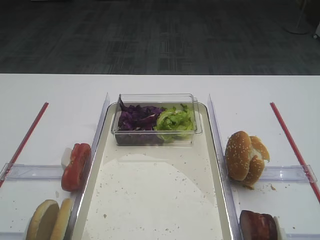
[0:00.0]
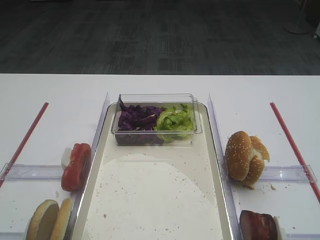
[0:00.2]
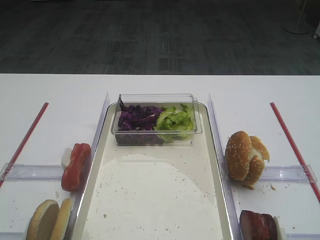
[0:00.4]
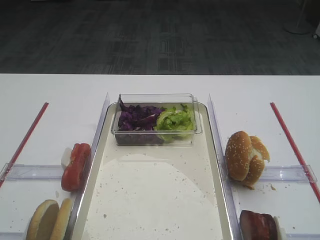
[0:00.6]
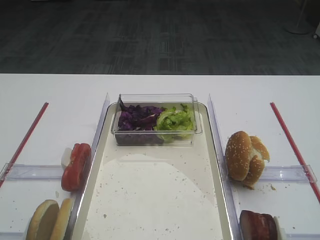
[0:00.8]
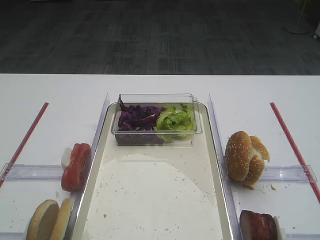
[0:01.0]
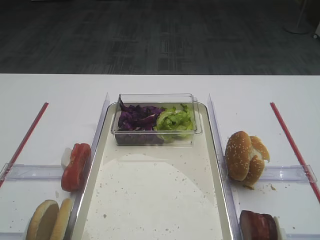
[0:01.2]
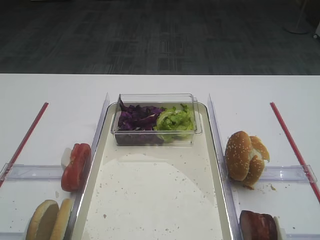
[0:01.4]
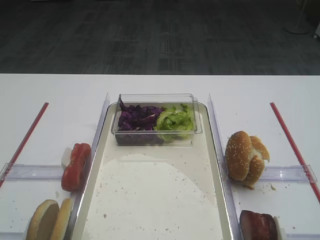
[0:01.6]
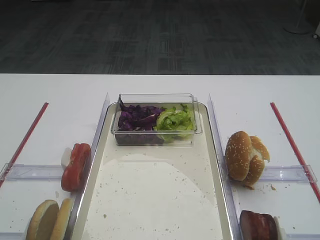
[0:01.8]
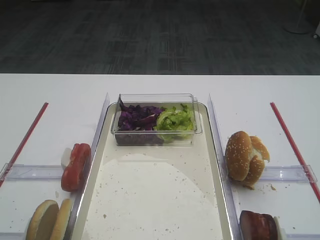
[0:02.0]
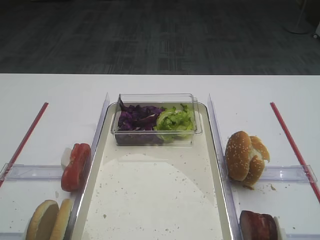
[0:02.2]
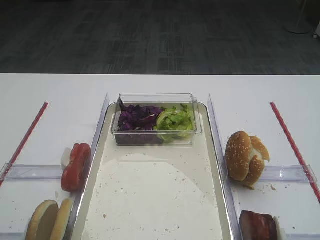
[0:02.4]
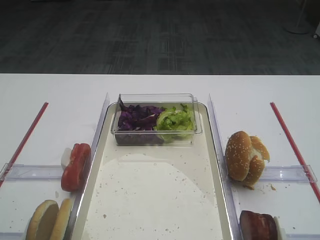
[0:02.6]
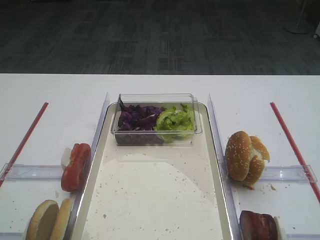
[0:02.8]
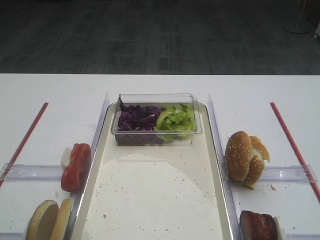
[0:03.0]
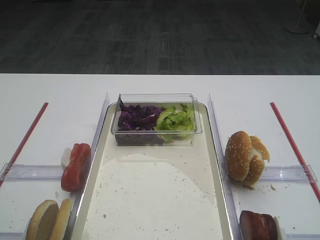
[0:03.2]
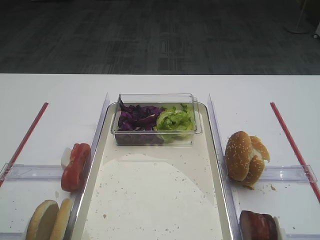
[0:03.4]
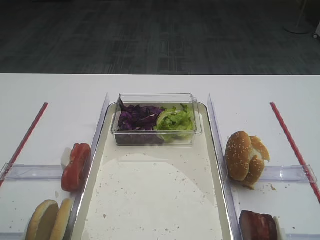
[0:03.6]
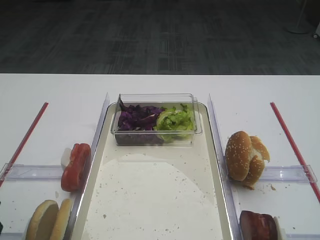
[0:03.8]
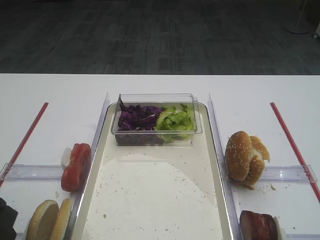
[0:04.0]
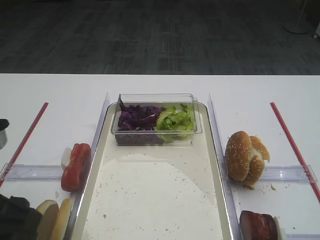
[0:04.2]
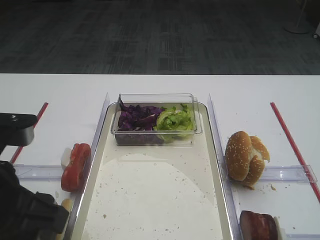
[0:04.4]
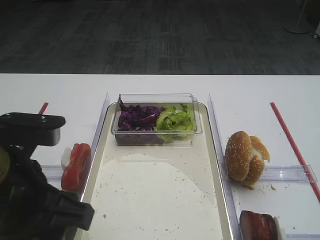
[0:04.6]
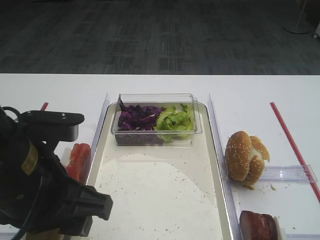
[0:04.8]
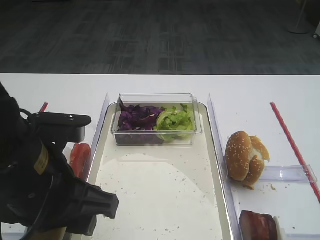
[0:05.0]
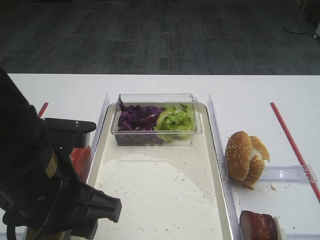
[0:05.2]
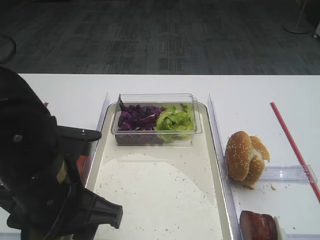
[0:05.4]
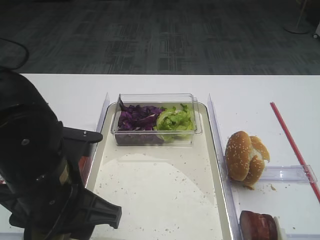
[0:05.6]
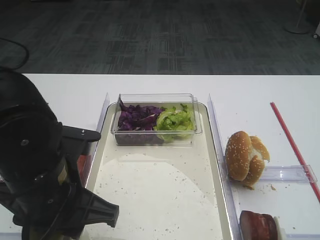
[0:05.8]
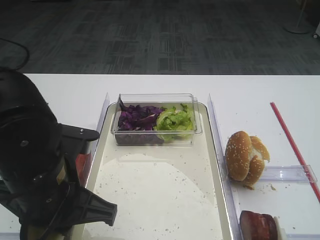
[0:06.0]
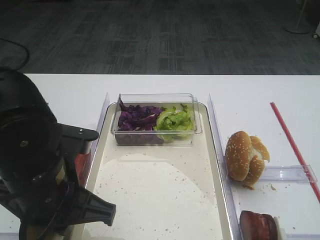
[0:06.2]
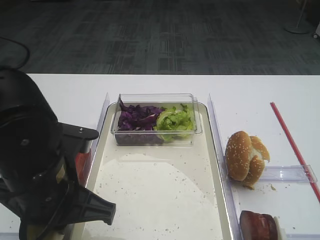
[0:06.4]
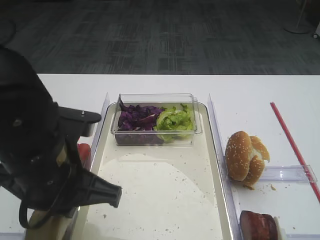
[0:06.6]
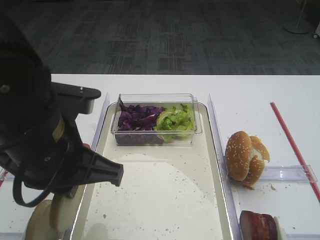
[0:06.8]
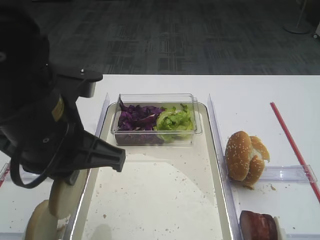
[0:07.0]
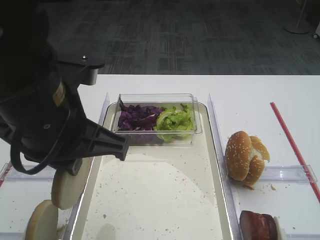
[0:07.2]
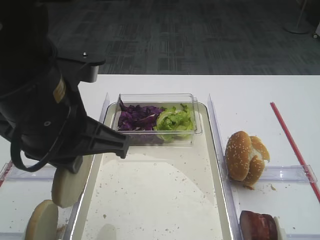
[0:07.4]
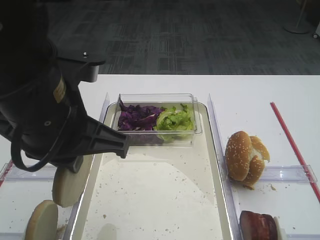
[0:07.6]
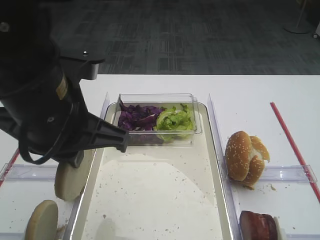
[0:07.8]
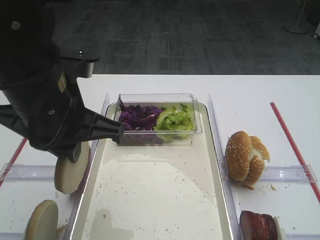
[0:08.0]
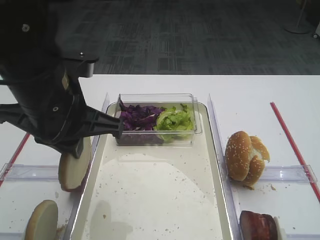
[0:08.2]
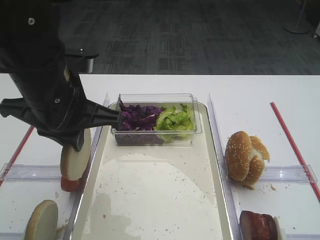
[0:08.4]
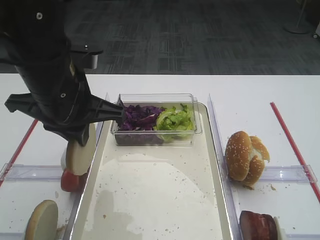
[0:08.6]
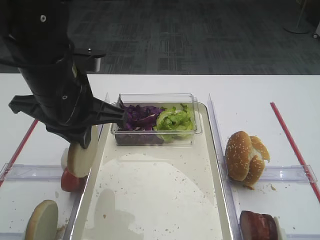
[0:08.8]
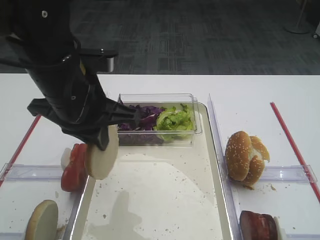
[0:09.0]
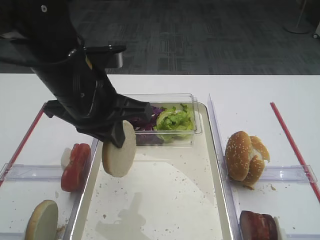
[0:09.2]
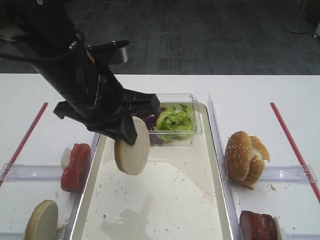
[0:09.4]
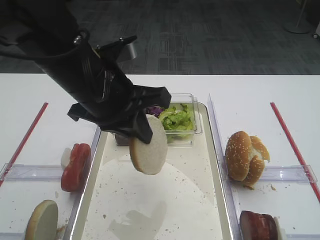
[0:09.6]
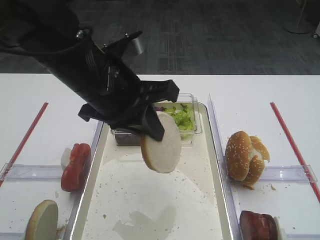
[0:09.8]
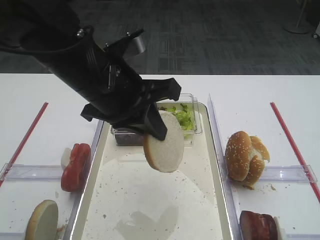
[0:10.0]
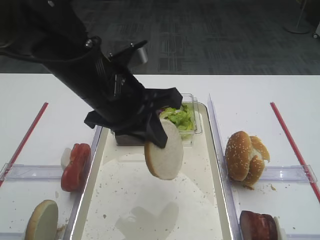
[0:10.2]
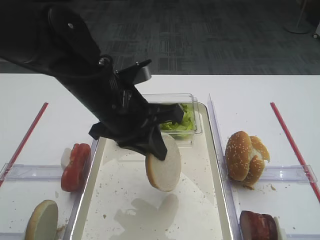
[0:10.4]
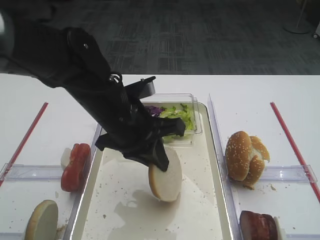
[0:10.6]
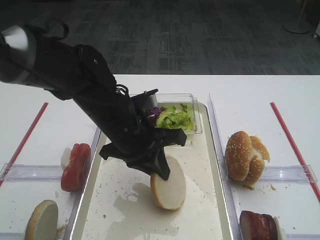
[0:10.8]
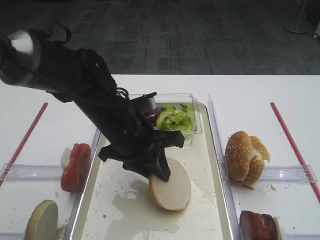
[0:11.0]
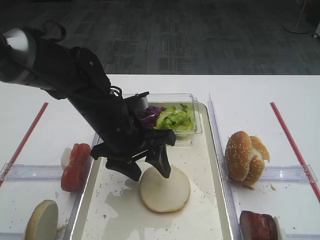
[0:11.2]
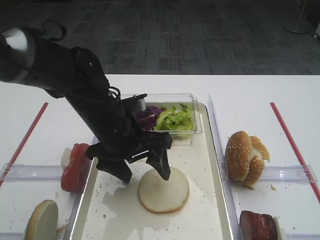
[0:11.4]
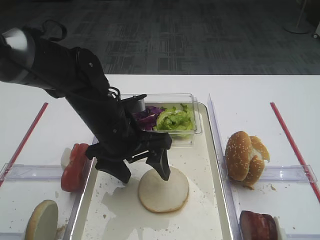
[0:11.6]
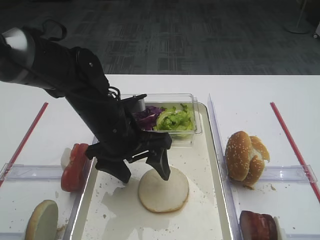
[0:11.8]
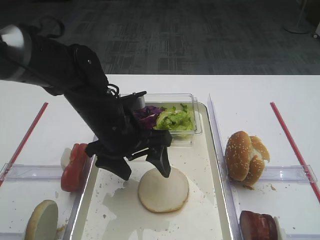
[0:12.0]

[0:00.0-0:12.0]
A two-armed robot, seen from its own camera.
Step, 0:00.0 to 0:07.4: Pick up the bread slice with the left gripper.
0:03.0 to 0:04.4: The left gripper travels to the right by about 10 cm.
0:04.4 to 0:06.0: The left gripper travels to the right by roughly 5 cm, and closes.
0:06.0 to 0:07.6: The left gripper travels upward by about 10 cm.
0:07.6 to 0:09.0: The left gripper goes approximately 5 cm forward.
0:09.0 to 0:10.4: The left gripper changes place by roughly 5 cm.
0:10.4 to 0:12.0: The left gripper heads downward, covering roughly 5 cm, and opens.

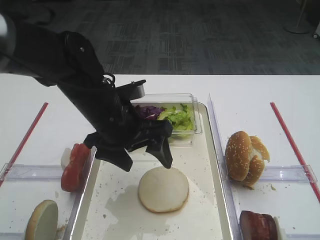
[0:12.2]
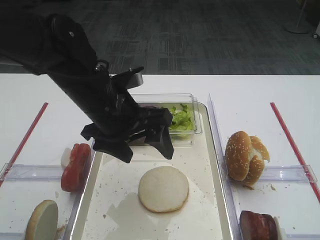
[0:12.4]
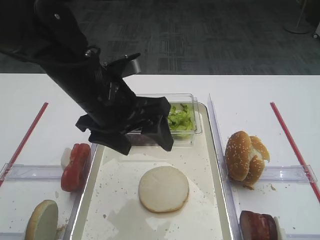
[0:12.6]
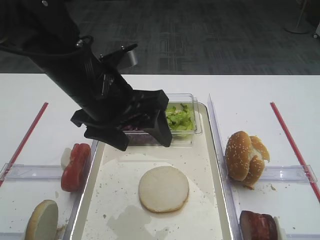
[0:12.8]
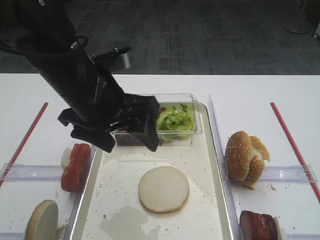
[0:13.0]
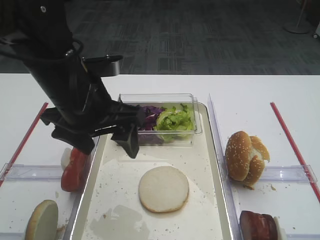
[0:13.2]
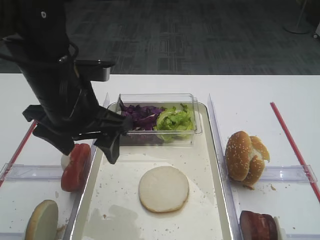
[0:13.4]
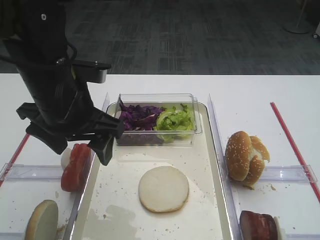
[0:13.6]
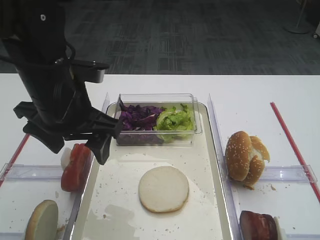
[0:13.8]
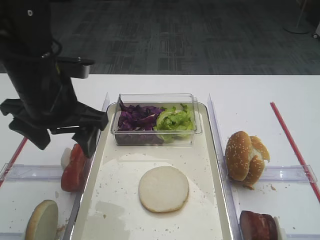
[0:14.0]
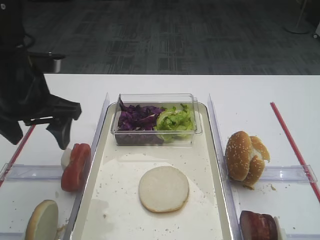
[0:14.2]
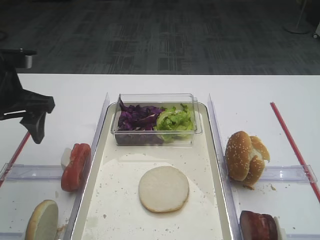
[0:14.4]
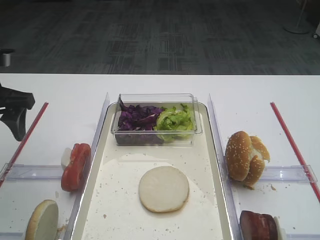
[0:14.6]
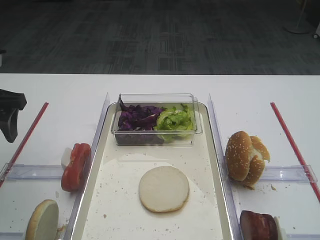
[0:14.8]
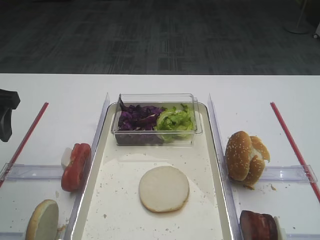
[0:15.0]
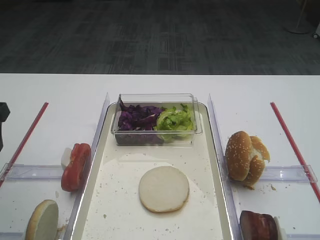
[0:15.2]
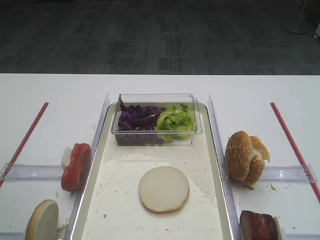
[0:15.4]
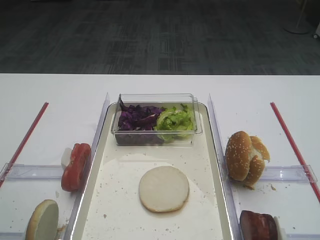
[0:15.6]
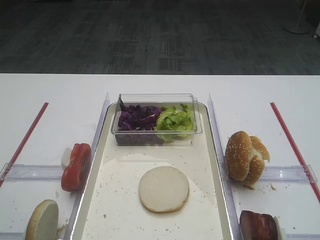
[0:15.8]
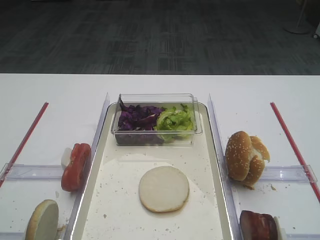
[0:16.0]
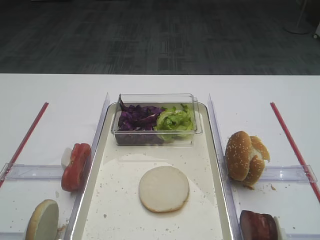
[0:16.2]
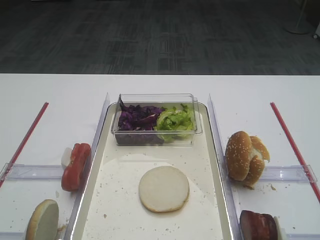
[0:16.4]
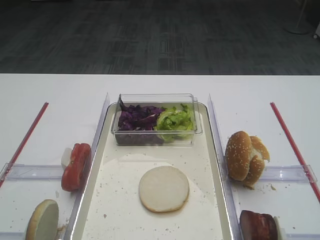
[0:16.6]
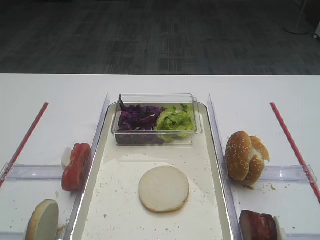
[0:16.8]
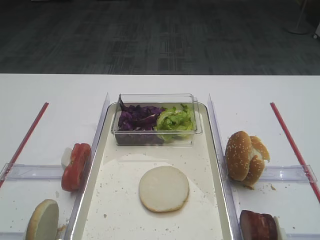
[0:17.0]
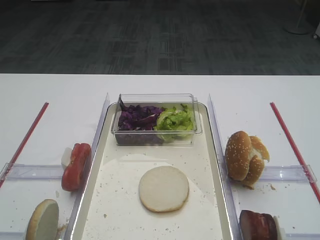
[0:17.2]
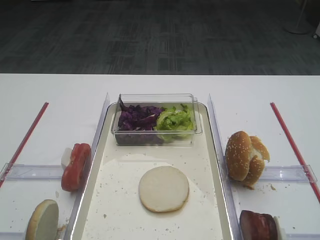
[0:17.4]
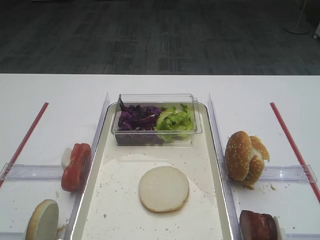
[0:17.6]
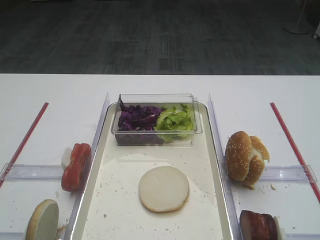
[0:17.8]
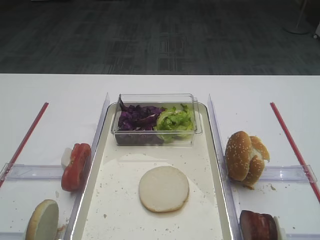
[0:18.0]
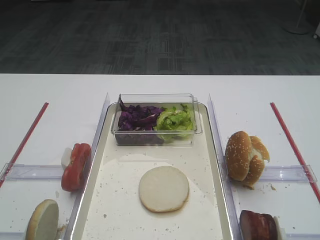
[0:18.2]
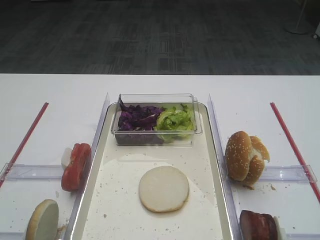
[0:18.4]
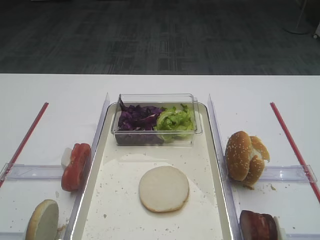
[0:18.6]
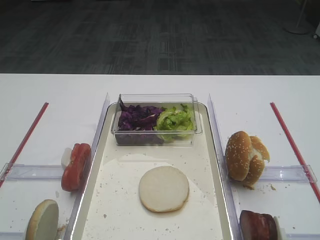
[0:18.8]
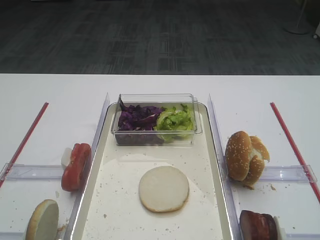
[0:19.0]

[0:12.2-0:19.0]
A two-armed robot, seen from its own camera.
0:12.2 to 0:13.6: The left gripper heads upward and to the left, covering approximately 10 cm.
0:13.6 to 0:15.0: The left gripper shifts about 15 cm to the left.
0:15.0 to 0:16.2: The left gripper is displaced backward by some 20 cm.
0:17.6 to 0:19.0: Both grippers stay put.

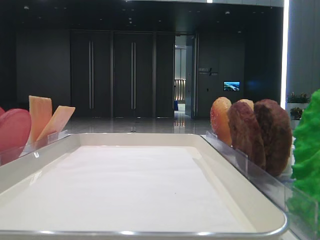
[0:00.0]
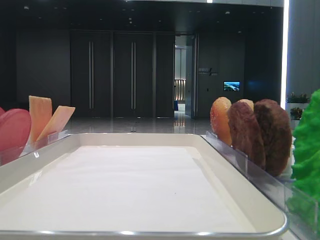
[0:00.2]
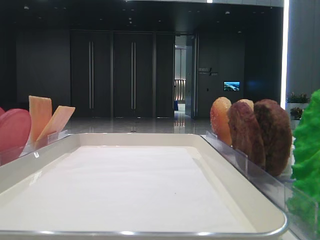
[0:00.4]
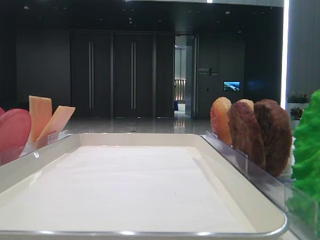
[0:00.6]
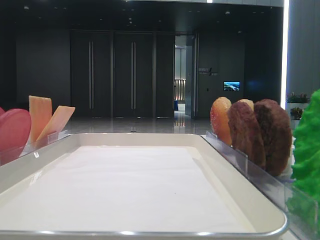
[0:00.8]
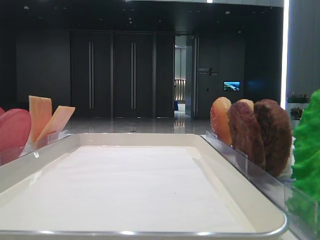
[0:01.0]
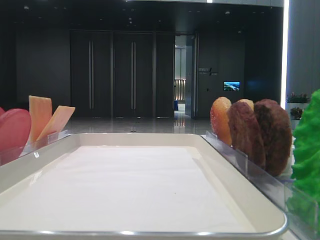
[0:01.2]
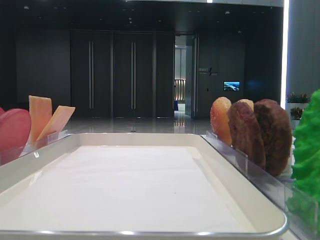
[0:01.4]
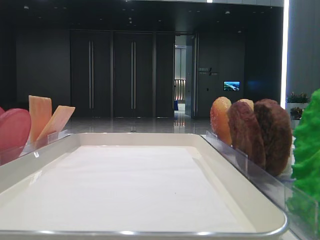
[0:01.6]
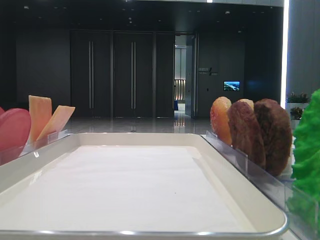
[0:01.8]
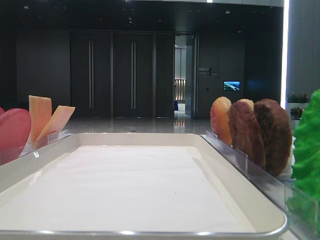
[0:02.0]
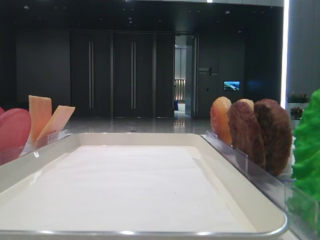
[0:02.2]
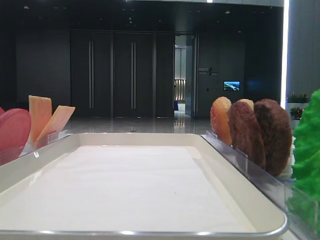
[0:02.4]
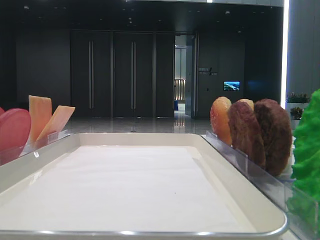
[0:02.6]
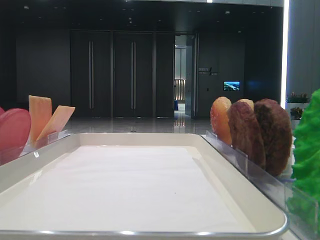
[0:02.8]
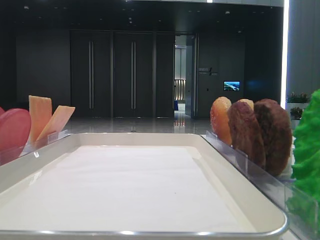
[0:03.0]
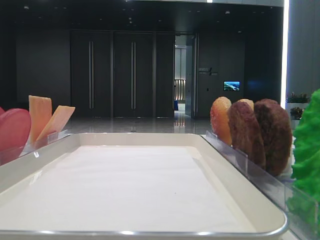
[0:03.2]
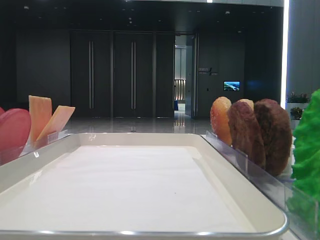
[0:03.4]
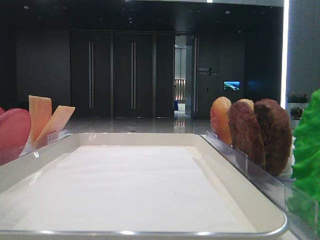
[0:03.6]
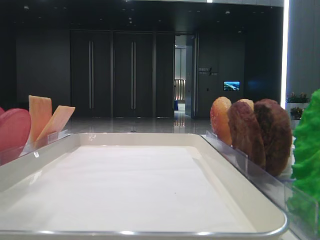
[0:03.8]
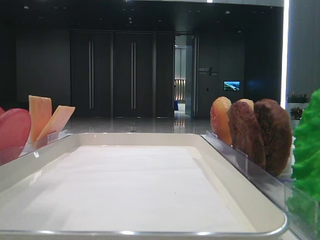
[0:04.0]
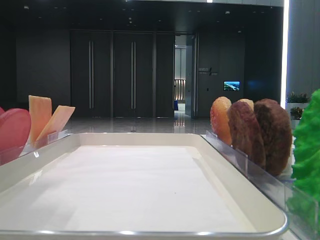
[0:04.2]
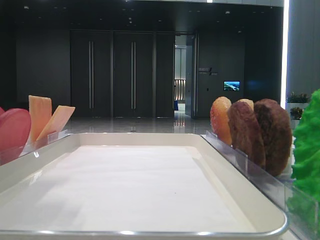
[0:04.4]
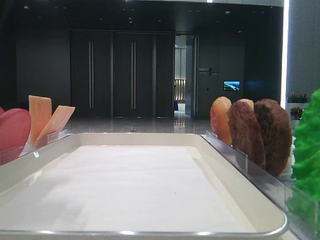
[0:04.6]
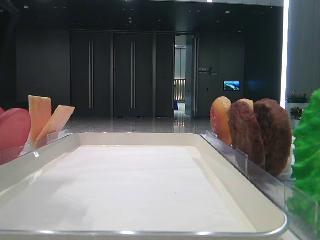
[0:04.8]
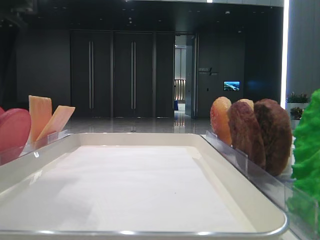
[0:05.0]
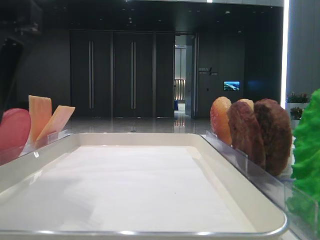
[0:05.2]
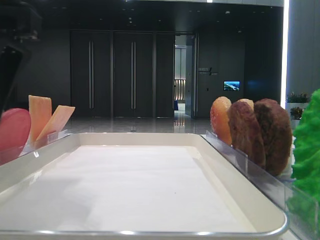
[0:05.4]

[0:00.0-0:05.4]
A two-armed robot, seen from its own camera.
0:02.8 to 0:04.0: The left gripper shifts approximately 15 cm to the right.
0:04.0 to 0:05.4: The left gripper goes about 5 cm downward.
